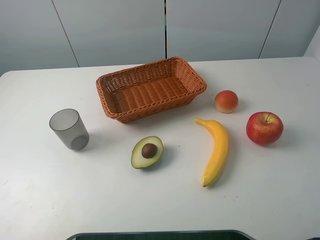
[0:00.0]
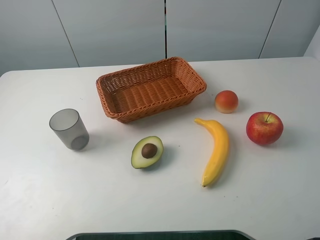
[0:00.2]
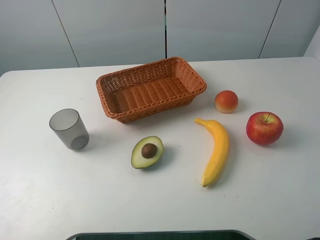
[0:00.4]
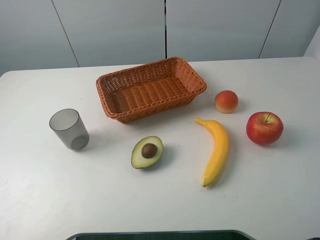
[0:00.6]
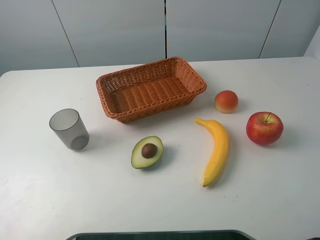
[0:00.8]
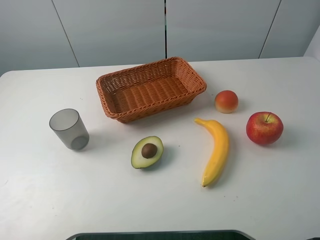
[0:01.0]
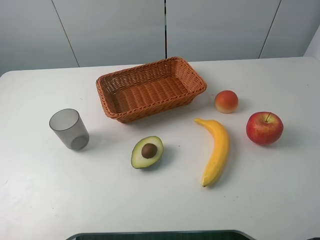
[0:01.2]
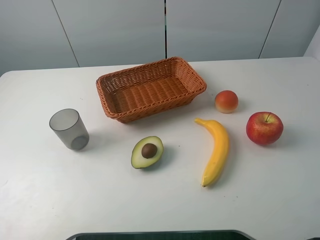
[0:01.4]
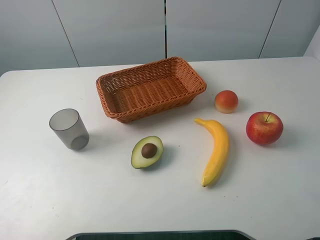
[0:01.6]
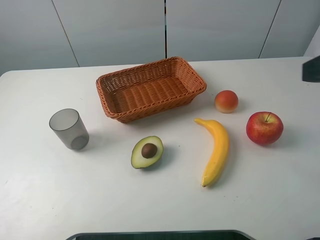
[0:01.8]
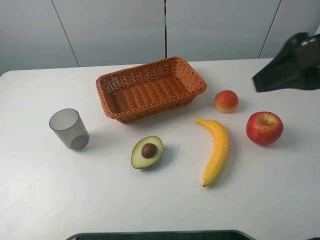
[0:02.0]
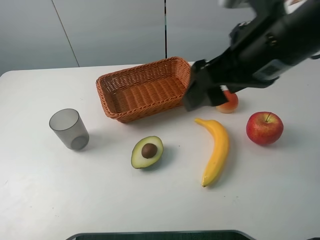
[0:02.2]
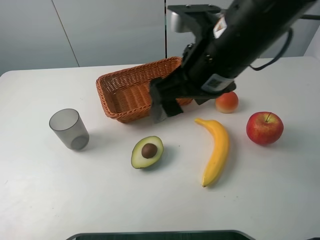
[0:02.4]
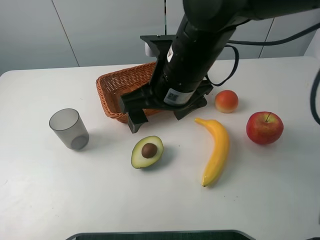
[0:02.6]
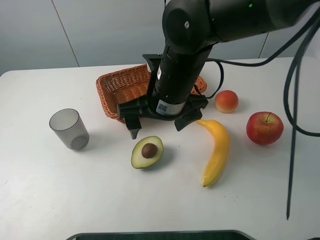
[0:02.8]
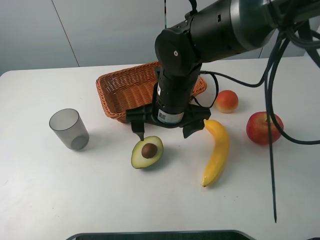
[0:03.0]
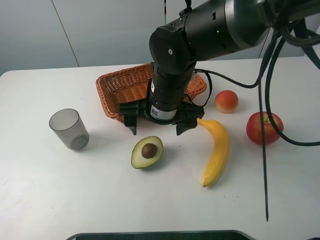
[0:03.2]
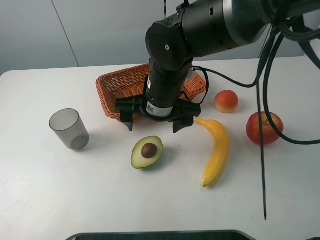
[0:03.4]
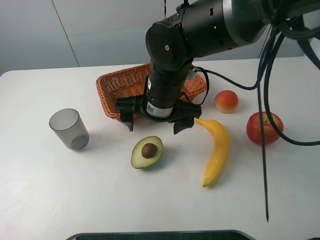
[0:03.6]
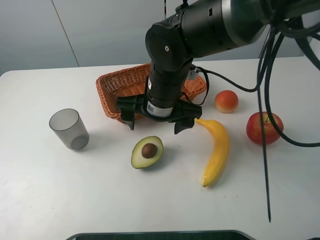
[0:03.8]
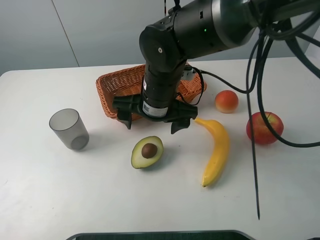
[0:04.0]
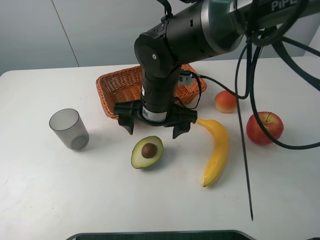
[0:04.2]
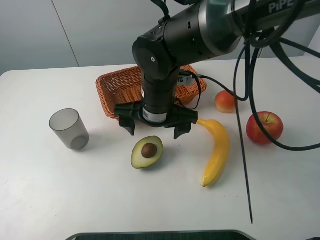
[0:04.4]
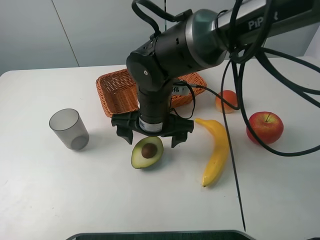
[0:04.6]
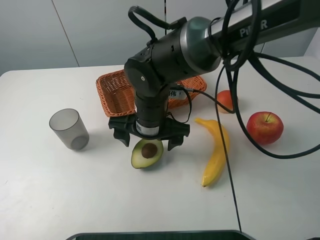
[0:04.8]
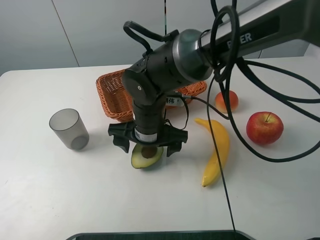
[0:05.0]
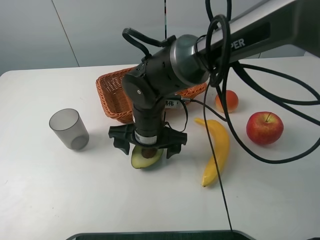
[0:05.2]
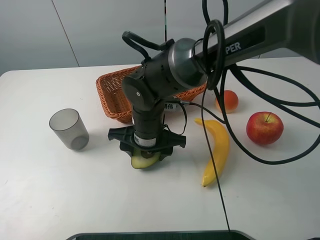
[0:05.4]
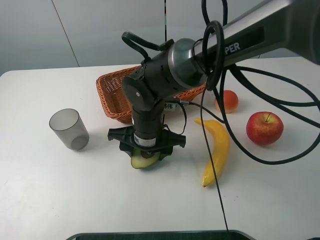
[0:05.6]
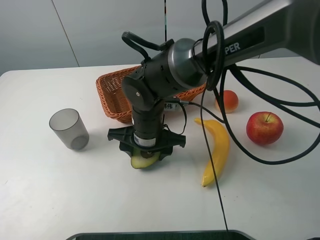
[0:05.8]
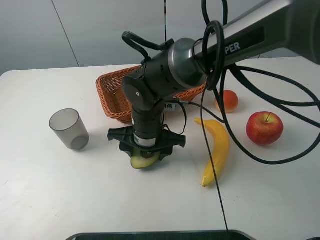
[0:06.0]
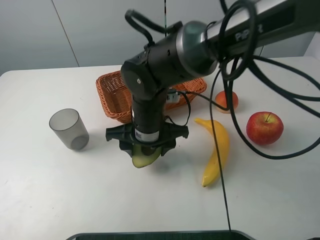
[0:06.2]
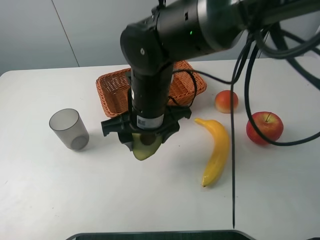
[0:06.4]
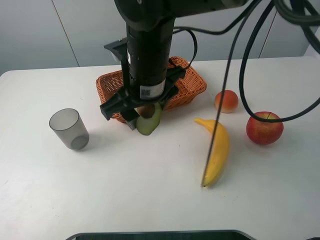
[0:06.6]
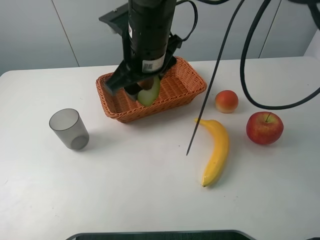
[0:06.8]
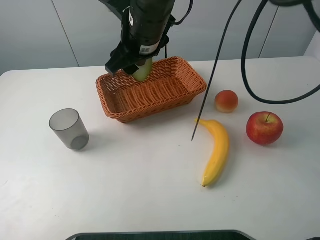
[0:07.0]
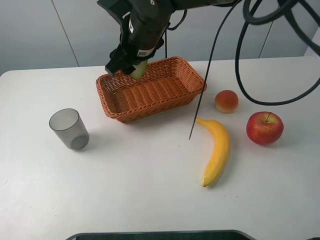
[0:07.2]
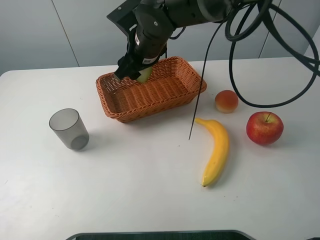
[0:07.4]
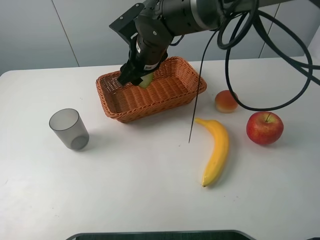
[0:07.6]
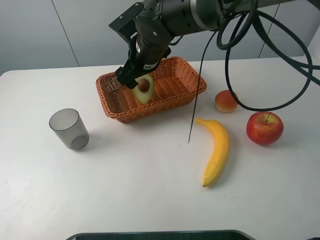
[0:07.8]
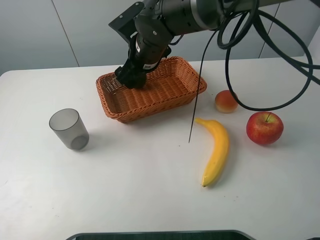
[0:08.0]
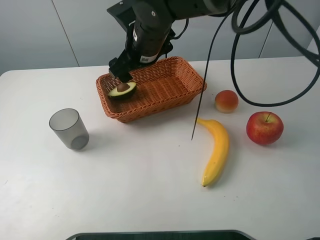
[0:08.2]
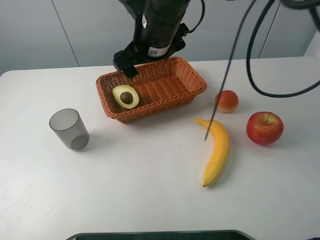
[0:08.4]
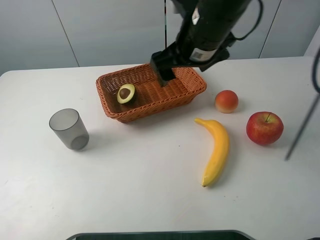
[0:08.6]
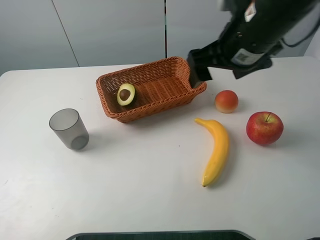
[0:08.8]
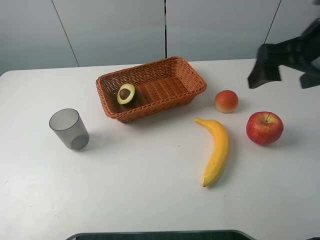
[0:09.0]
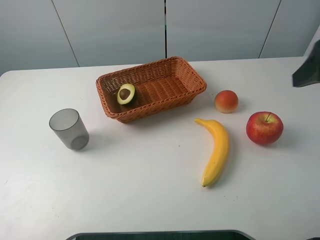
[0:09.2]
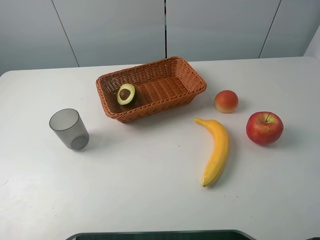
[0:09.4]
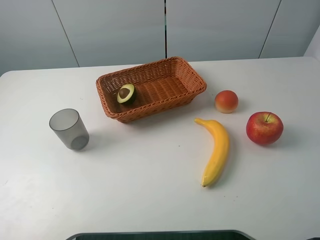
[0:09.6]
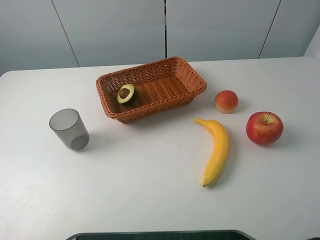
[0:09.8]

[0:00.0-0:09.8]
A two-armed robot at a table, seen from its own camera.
Task of the whole recording: randomly pick up an item from the table and put it in the basket.
Step, 0:00.0 to 0:05.4: Grasp the avocado with the right gripper.
Step, 0:05.6 to 0:08.4: Place the avocado into the basket with the right gripper.
0:01.4 to 0:02.8: The right gripper heads to the left and forward, covering approximately 35 cm.
0:02.8 to 0:04.2: The right gripper heads downward, covering some 5 cm.
0:04.2 to 0:05.6: The right gripper shifts some 5 cm downward, and closes up.
0:05.6 to 0:07.0: The right gripper is displaced upward and forward by some 15 cm.
0:07.0 to 0:08.4: The right gripper opens up.
0:08.4 to 0:09.8: The right gripper travels to the right and backward by about 40 cm.

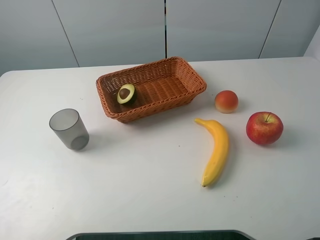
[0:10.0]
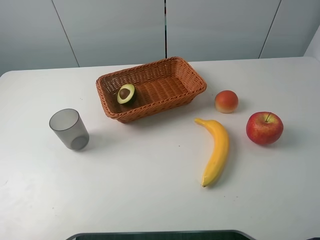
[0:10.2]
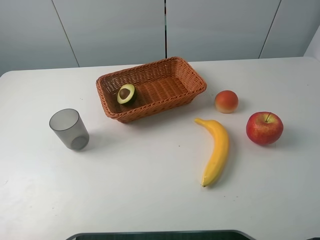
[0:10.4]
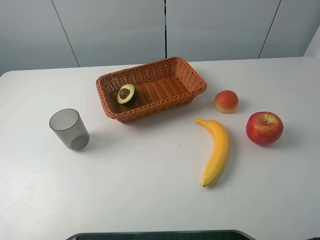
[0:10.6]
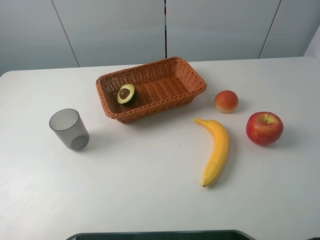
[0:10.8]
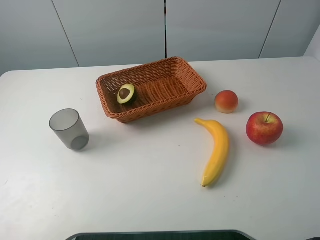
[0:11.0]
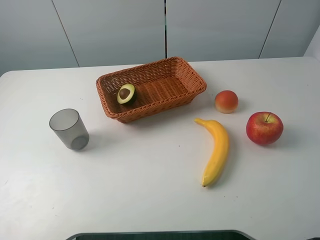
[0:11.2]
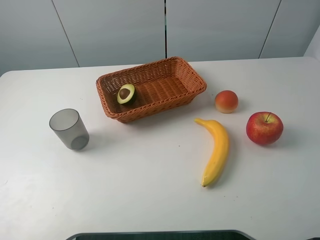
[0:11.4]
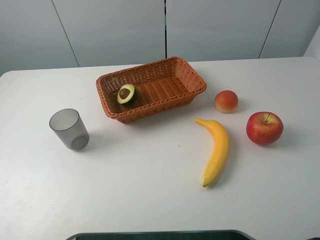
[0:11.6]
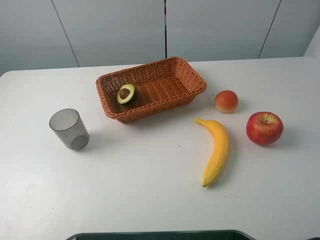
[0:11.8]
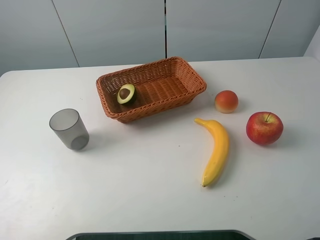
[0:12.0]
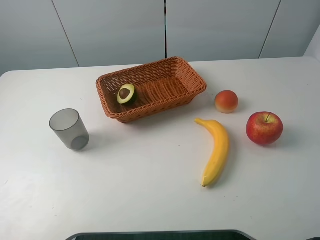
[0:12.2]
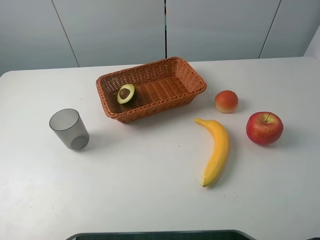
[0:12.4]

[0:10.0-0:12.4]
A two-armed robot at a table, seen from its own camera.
Task of the whole recording: randomly pick up an item from the table and put it in the basket.
0:10.0 to 0:11.2: The two grippers keep their place.
